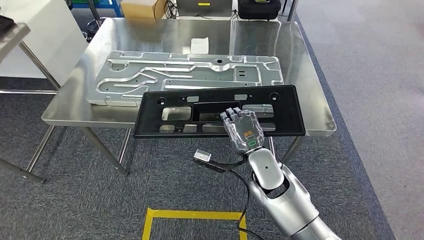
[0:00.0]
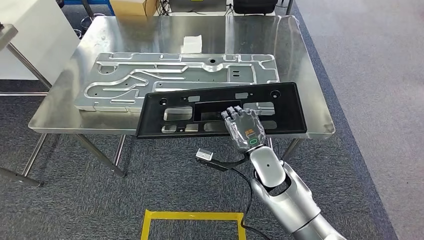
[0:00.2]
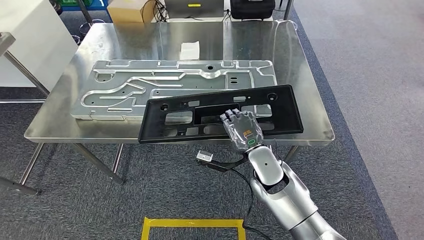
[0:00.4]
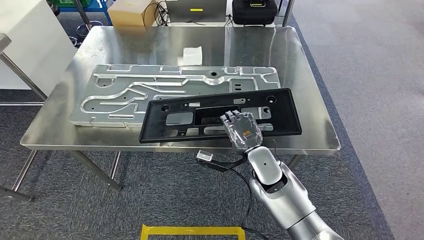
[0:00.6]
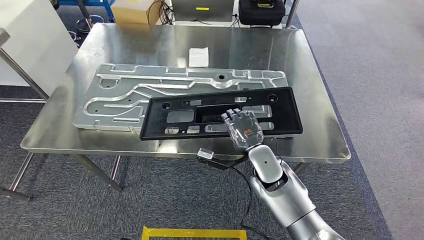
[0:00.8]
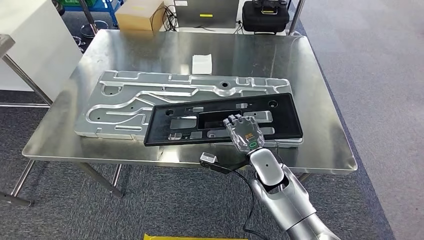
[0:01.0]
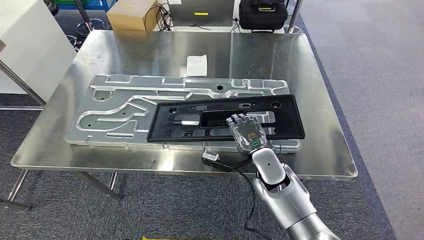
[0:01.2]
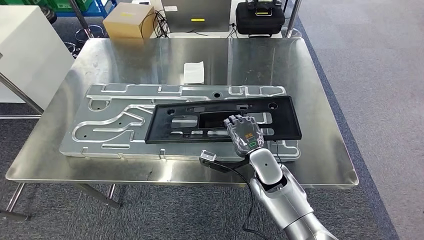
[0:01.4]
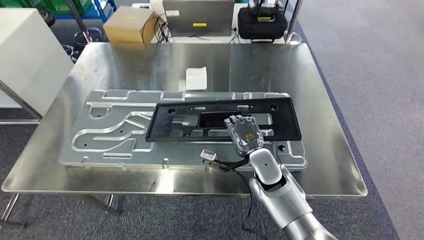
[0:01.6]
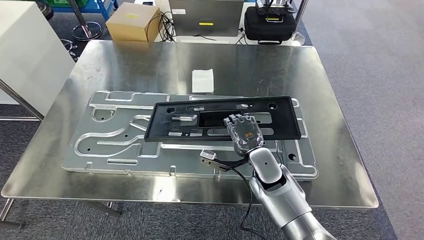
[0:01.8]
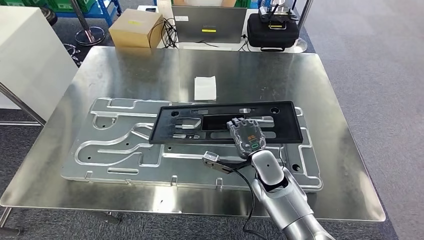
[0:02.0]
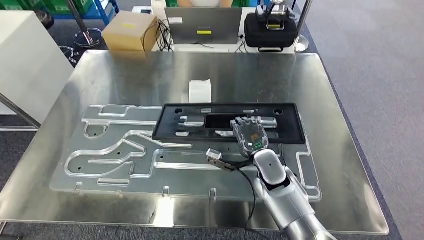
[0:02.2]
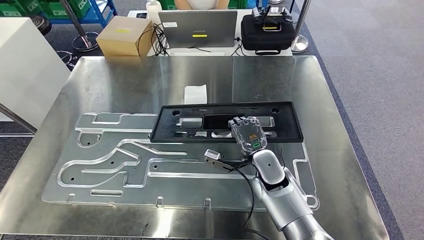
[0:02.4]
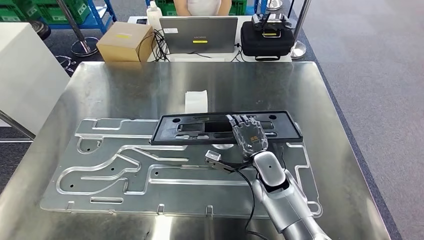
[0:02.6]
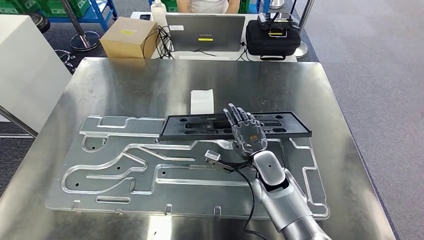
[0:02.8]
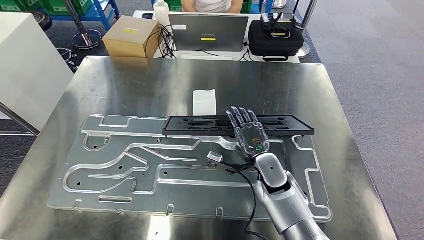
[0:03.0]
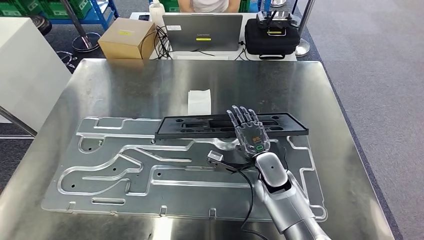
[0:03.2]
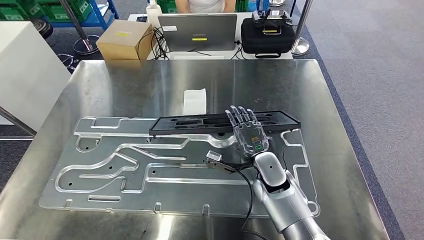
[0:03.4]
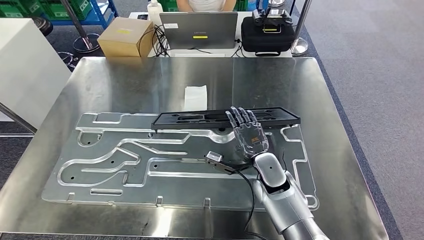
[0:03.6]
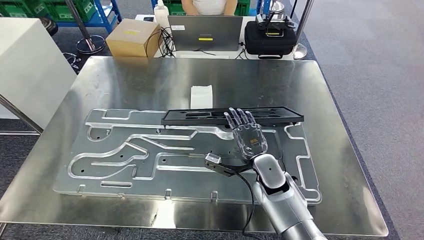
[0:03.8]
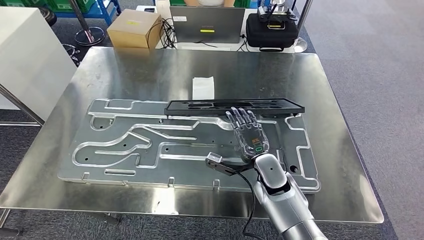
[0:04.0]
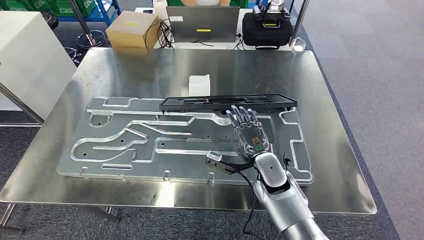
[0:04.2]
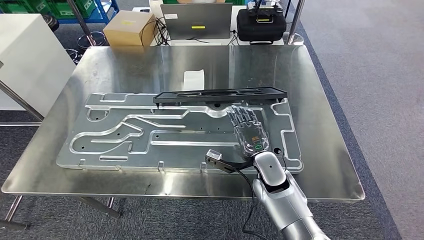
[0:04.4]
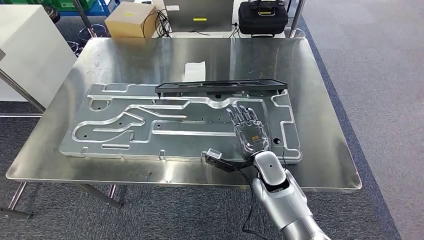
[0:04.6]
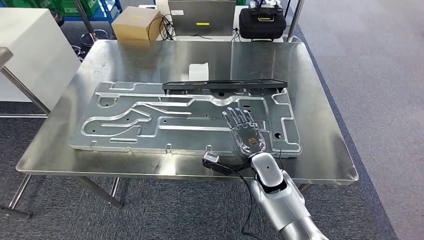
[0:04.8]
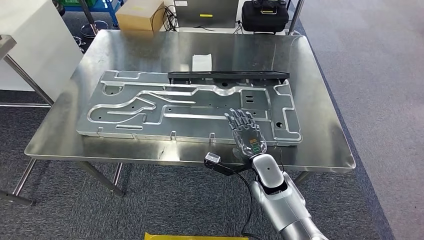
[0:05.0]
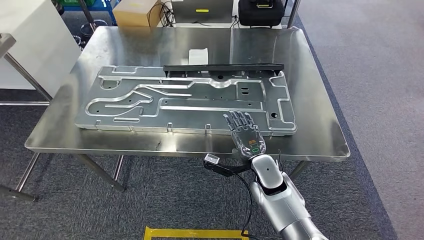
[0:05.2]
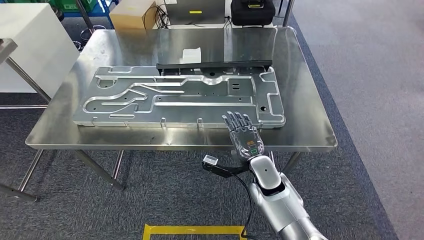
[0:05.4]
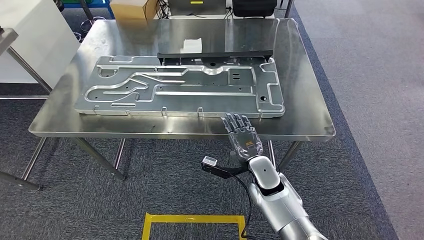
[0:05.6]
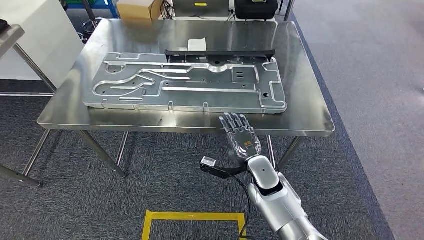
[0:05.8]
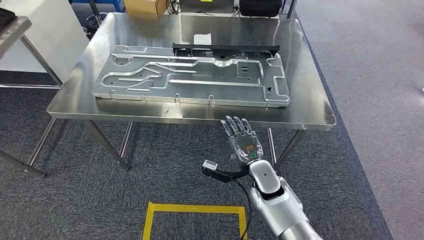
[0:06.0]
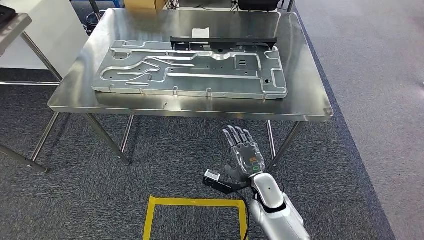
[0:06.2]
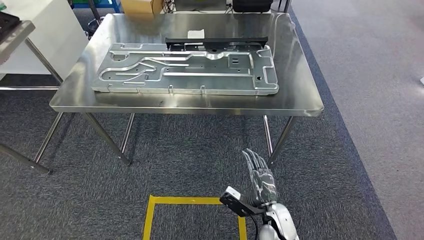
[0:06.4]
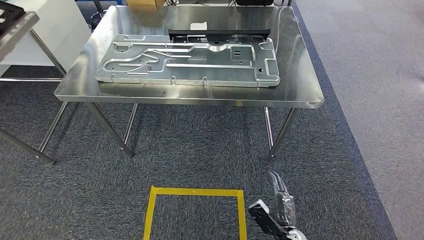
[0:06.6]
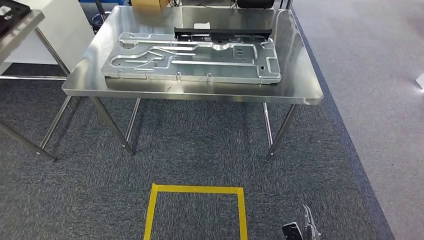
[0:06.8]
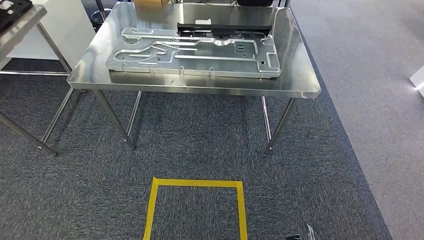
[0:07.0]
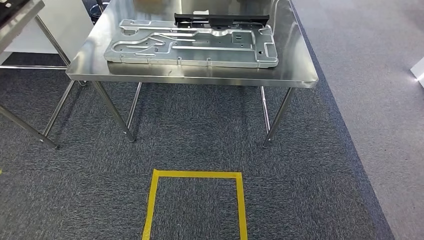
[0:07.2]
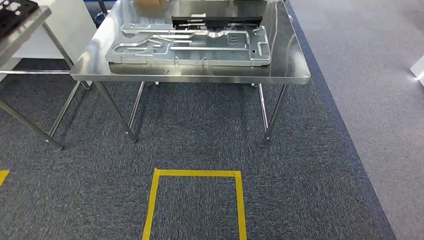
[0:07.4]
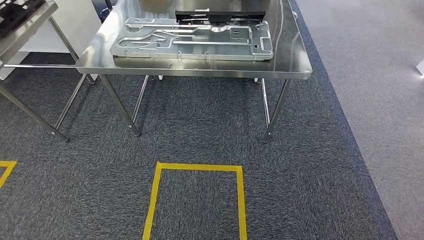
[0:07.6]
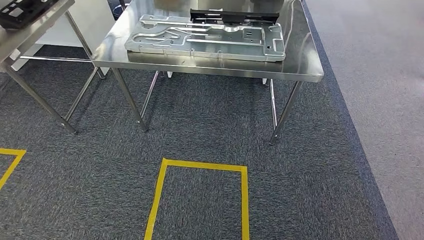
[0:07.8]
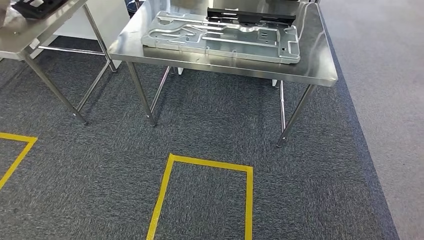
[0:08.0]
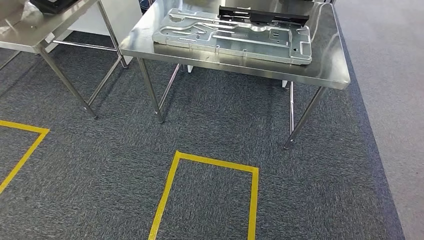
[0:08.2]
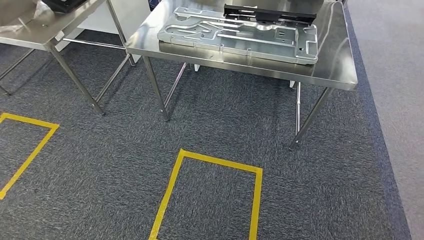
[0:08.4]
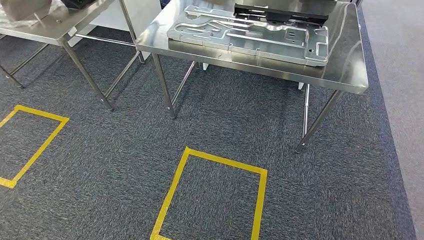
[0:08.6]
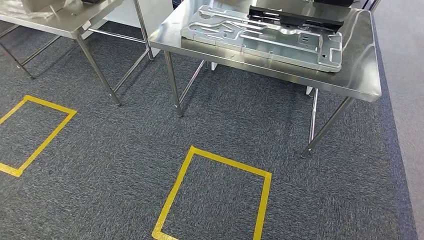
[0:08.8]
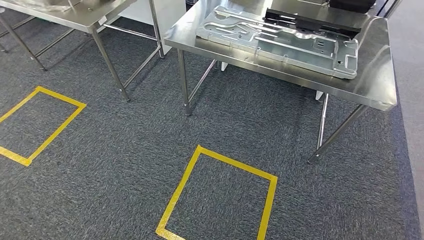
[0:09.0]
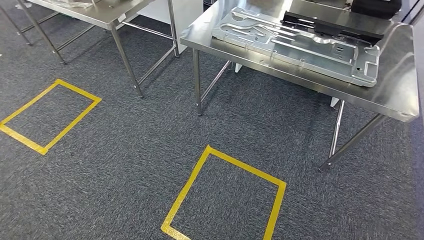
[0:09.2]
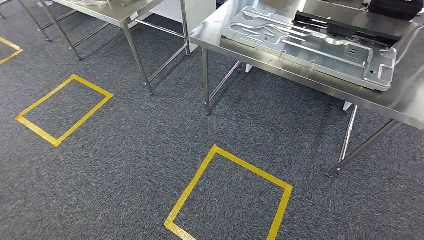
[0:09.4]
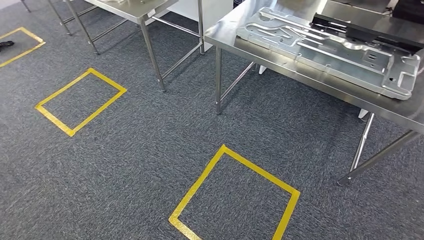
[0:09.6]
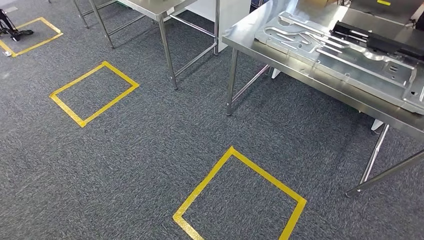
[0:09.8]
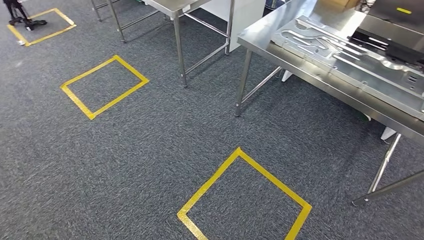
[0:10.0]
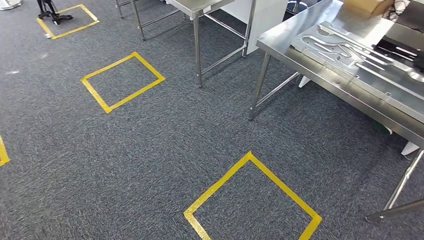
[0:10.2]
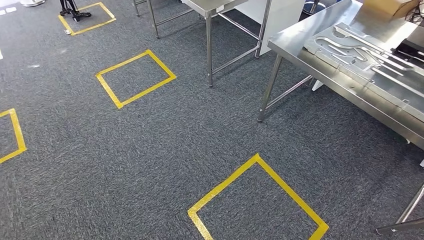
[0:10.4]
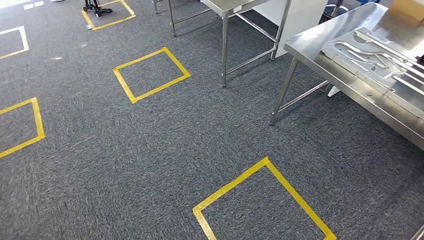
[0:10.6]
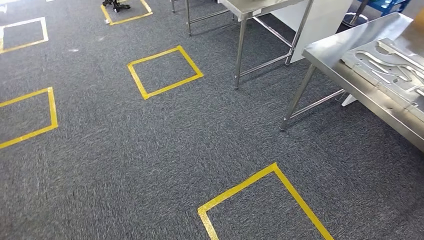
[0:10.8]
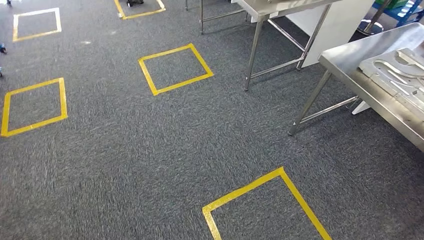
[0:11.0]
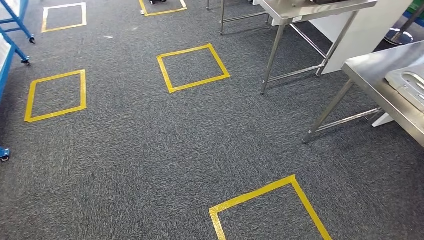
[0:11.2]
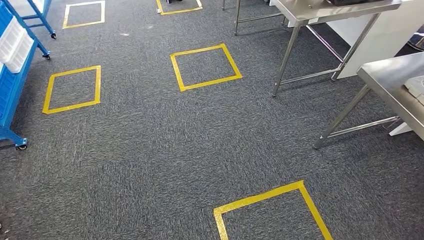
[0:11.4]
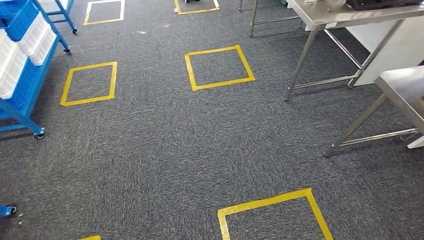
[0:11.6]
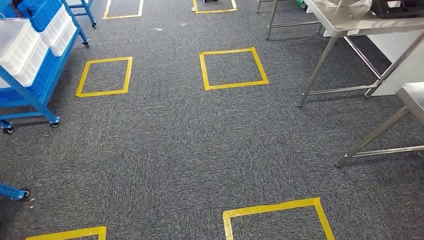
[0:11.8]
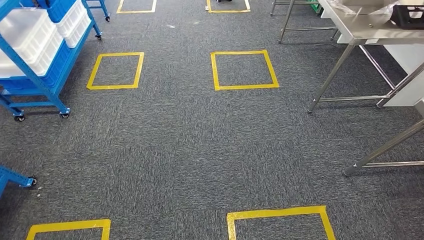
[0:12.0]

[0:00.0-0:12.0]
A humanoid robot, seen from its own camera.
Step, 0:00.0 to 0:06.0: Insert the large material into the corresponding slot on the workbench.

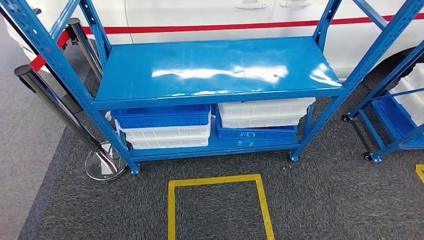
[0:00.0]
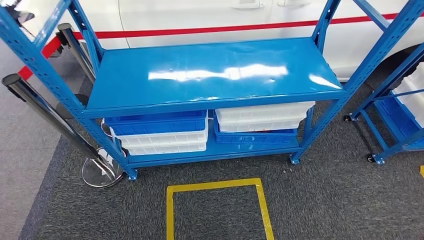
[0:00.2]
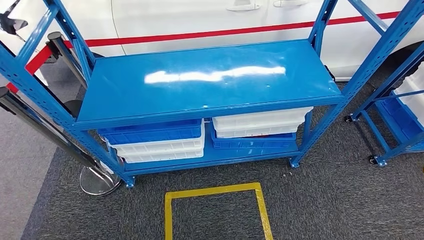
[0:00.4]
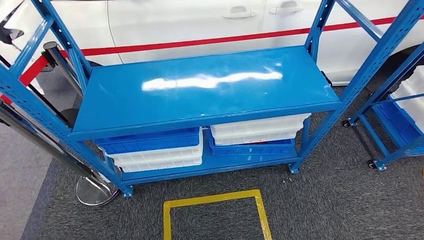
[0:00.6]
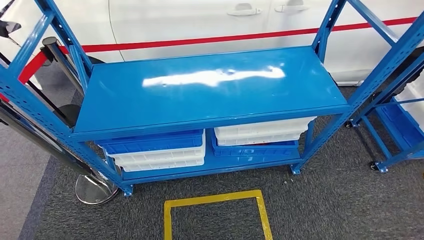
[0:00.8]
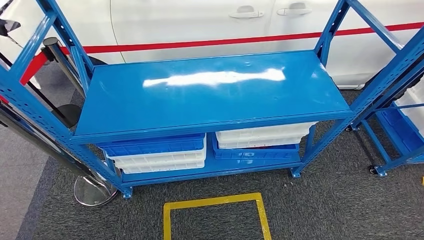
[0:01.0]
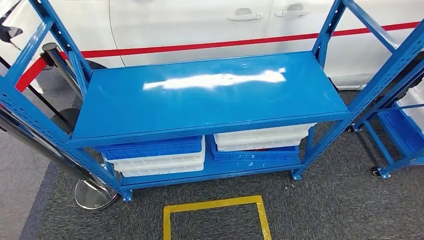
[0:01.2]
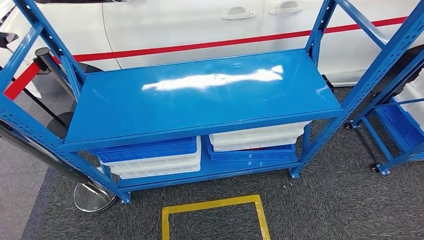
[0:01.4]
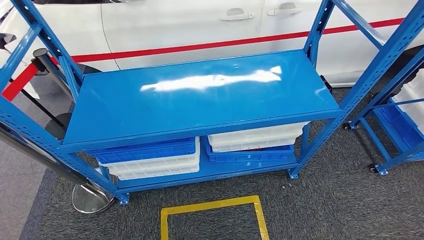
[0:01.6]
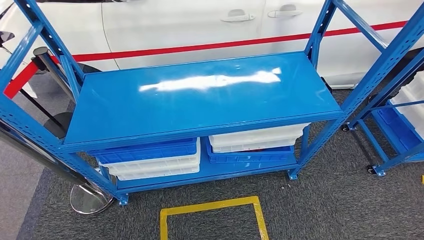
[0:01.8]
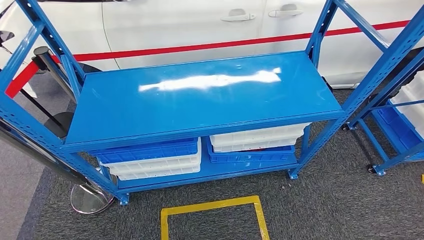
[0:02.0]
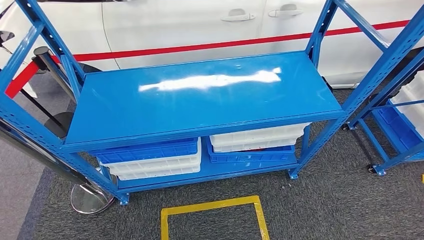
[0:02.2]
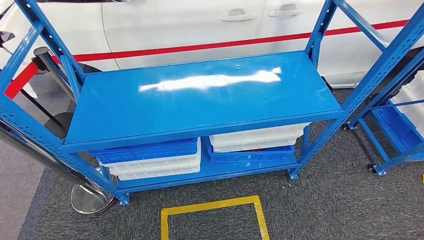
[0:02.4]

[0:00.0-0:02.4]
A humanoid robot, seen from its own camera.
Step, 0:00.0 to 0:02.4: Move to the initial position of the shelf.
